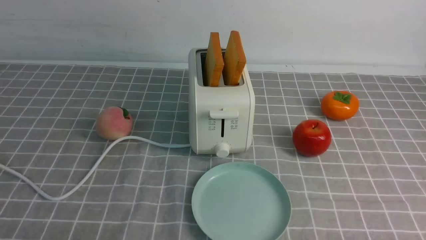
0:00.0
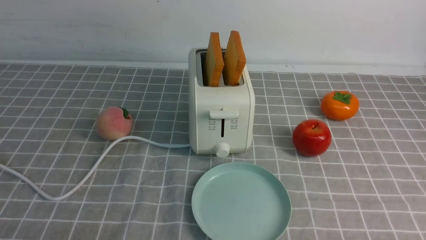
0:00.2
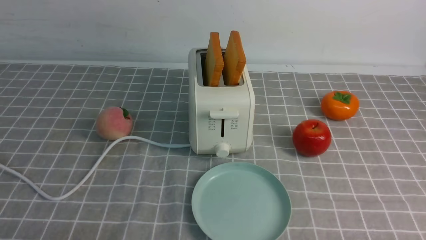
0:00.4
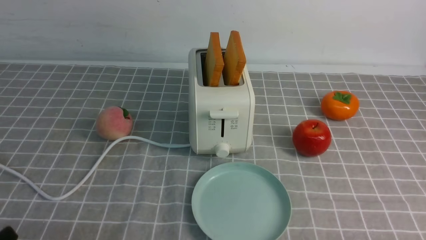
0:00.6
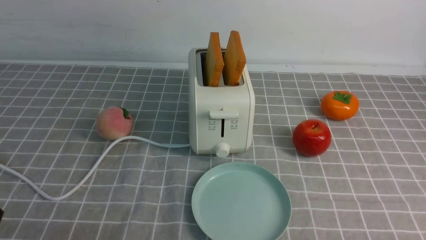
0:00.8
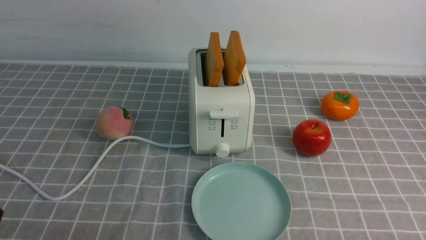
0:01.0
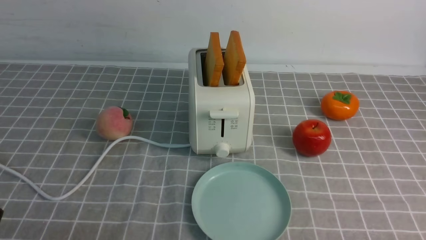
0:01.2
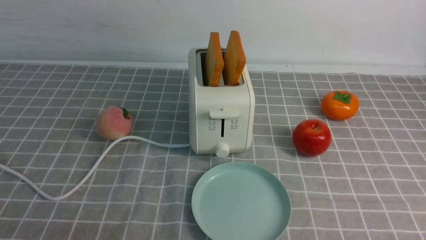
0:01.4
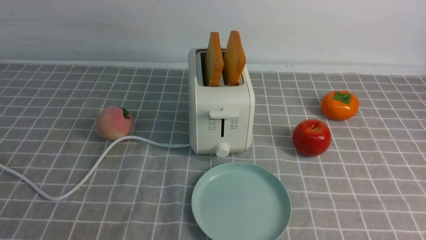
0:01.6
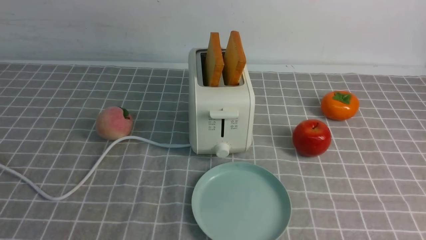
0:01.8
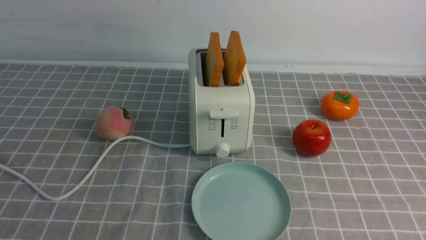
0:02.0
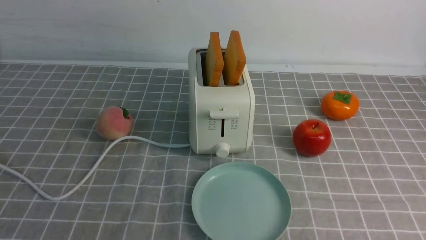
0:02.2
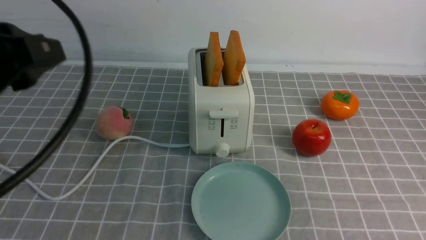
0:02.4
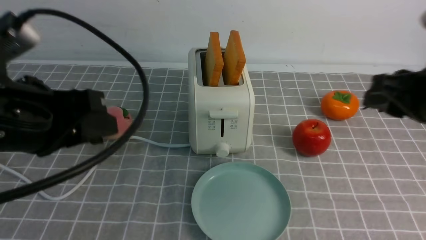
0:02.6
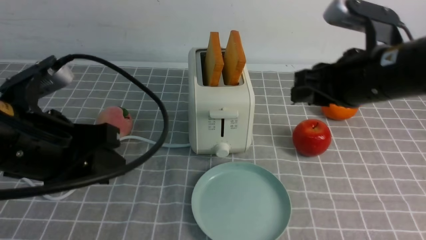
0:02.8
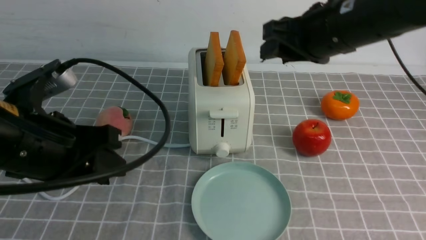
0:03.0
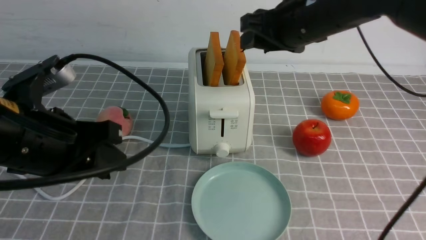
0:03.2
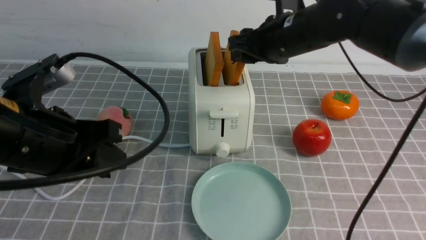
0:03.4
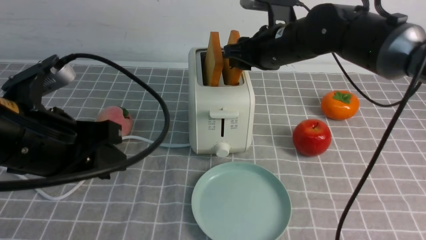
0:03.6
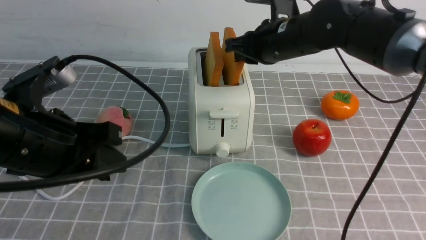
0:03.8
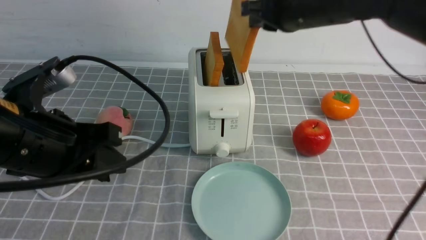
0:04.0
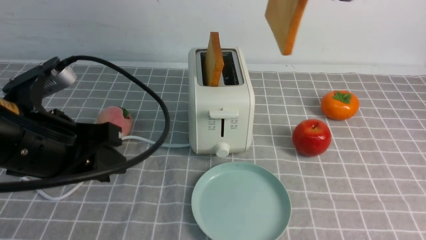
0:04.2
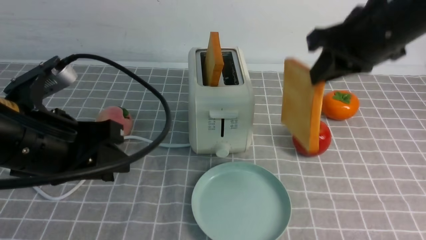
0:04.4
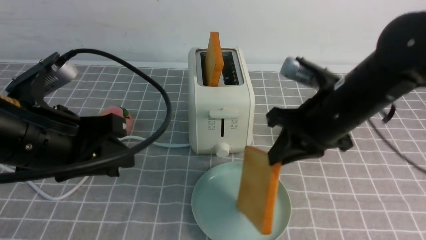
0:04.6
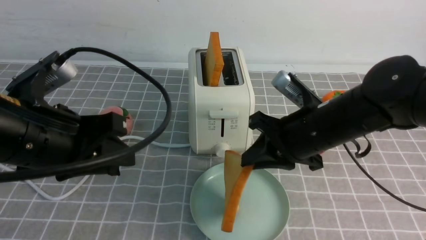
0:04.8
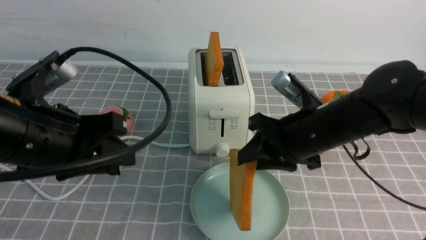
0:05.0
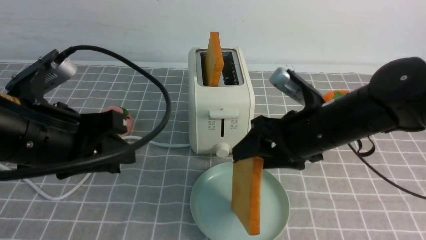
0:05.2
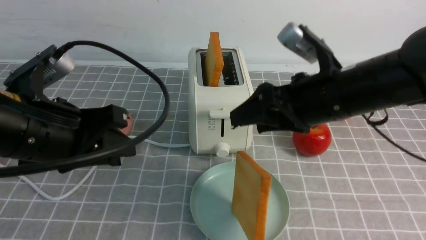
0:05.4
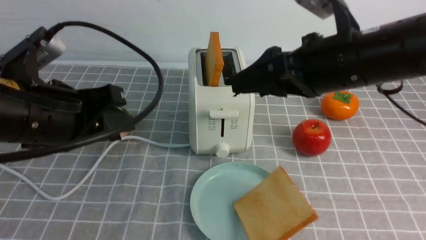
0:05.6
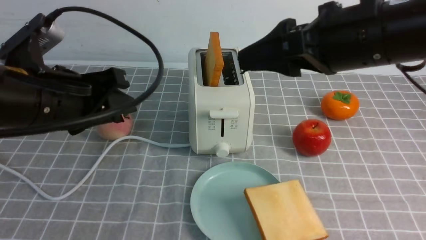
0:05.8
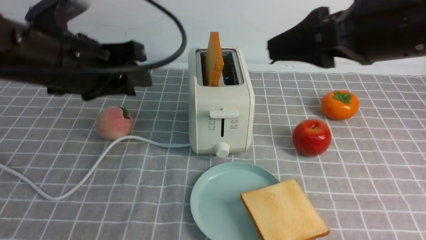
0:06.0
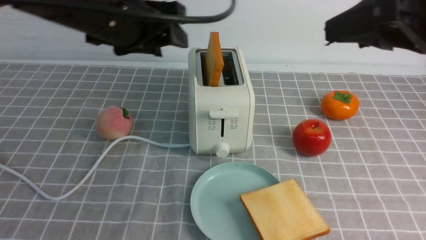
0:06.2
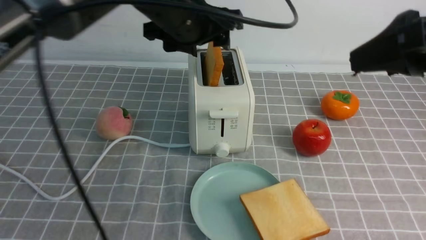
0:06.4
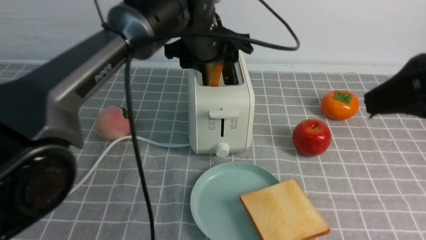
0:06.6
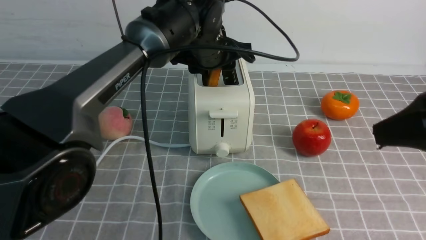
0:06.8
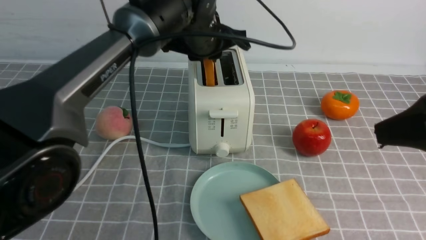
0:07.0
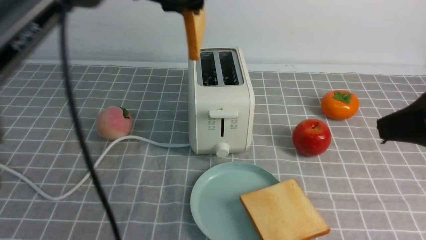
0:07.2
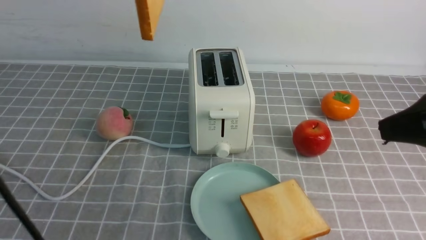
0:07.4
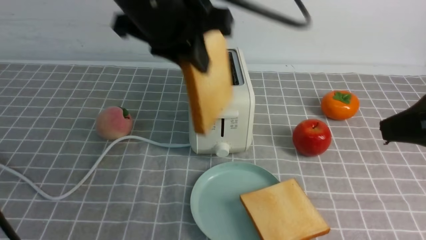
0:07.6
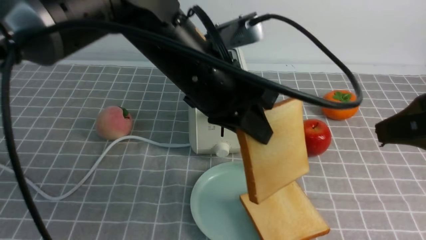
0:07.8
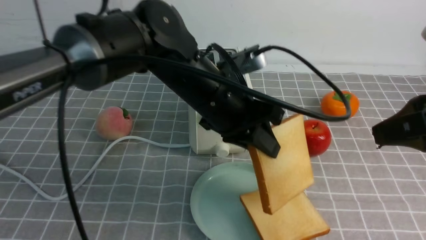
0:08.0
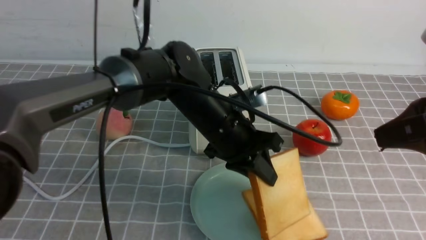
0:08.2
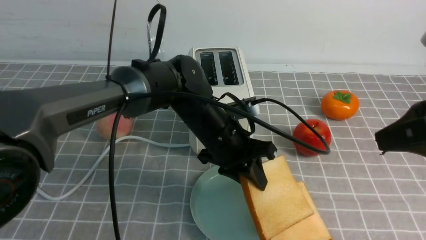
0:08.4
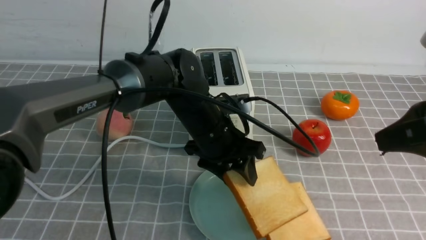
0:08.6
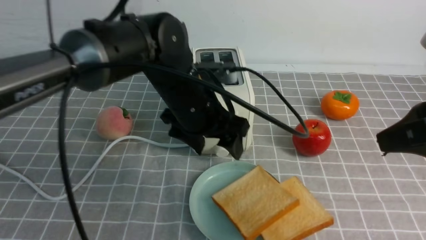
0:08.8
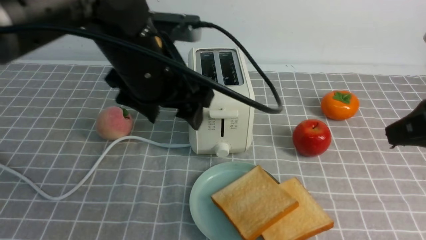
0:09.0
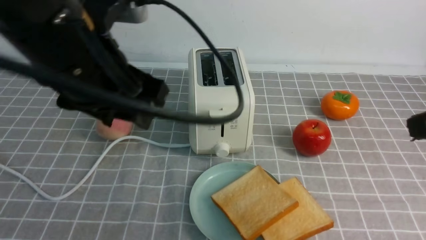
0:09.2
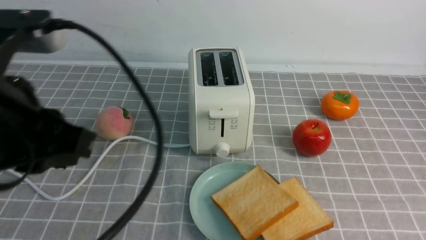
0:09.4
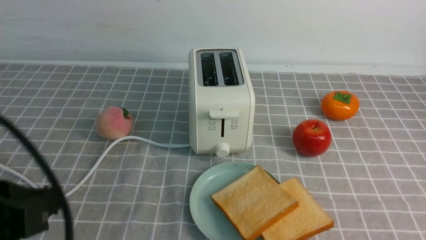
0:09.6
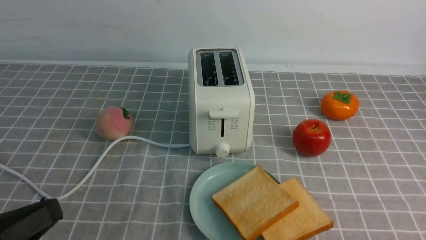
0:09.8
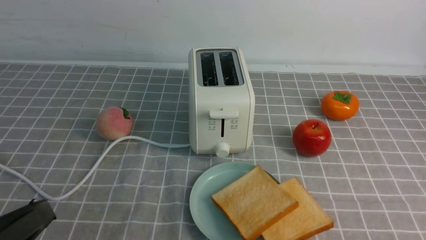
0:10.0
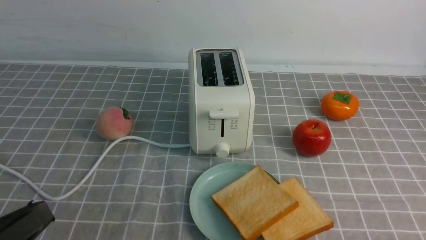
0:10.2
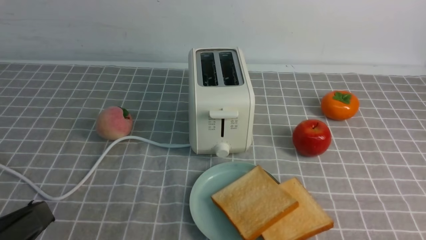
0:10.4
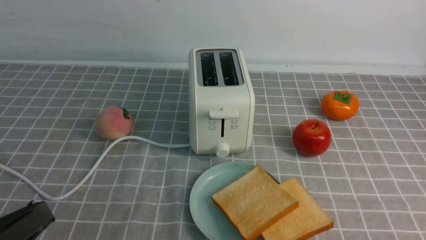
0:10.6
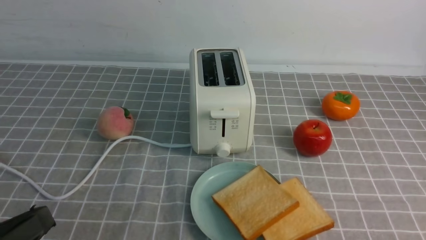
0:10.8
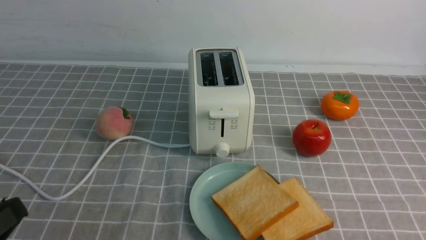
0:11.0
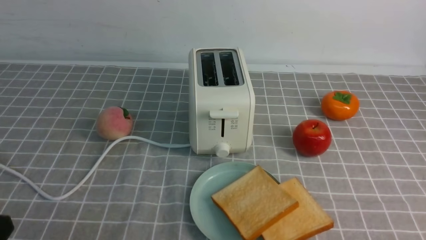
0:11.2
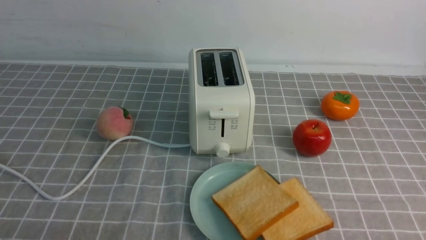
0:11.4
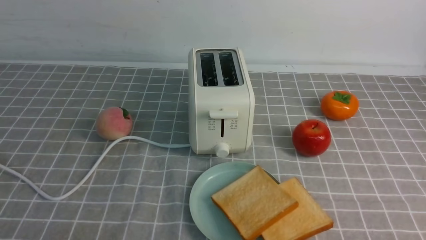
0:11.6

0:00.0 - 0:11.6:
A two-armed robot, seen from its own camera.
Task of the whole recording: take toasted bread from bread machine on grey coffee table place on plate.
Step, 0:00.0 - 0:04.0: use the right arm to take out a slice of bread.
Step, 0:04.2 - 0:05.4: use the right arm to put a slice of bread into the plate.
Step, 0:05.8 - 0:07.2: use the left arm to take out a slice of bread.
Step, 0:07.4 - 0:08.8: use the left arm to put a slice of bread into the empty plate.
0:01.4 - 0:02.8: The left gripper travels forward, upward and to the right by approximately 20 cm, while the right gripper is displaced forward, to the left and upward by roughly 30 cm.
0:02.8 - 0:04.4: The right gripper travels forward and back again, some 15 cm each way, and closes its fingers.
0:04.4 - 0:05.8: The right gripper travels backward by about 5 cm, moves roughly 10 cm downward and comes back, and opens, while the left gripper changes place by roughly 5 cm.
0:05.8 - 0:07.2: The left gripper moves forward, to the right and upward, about 20 cm, and opens, then closes again; the right gripper travels backward and to the right by approximately 15 cm.
0:07.2 - 0:08.8: The right gripper closes. Meanwhile the left gripper heads downward, covering about 15 cm, and opens its fingers.
0:08.8 - 0:10.2: The left gripper heads backward and to the left, covering about 30 cm, and closes its fingers. The right gripper heads downward and backward, covering some 20 cm, and closes.
0:10.2 - 0:11.6: The left gripper heads downward, covering approximately 10 cm.

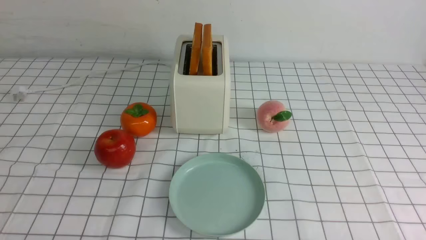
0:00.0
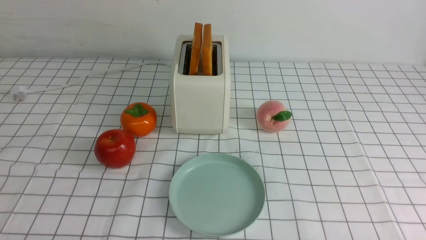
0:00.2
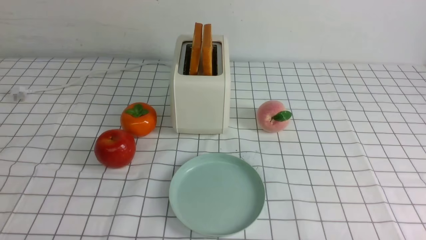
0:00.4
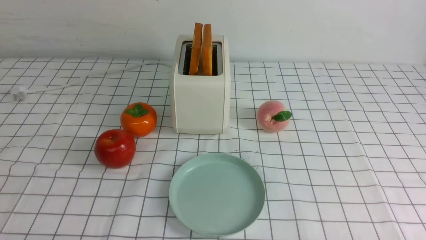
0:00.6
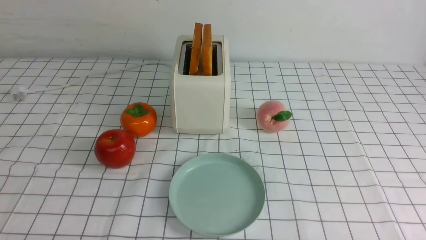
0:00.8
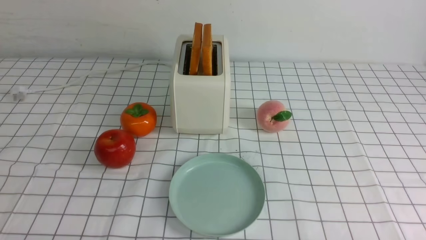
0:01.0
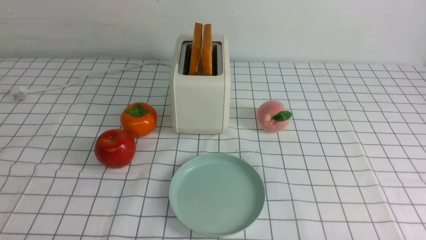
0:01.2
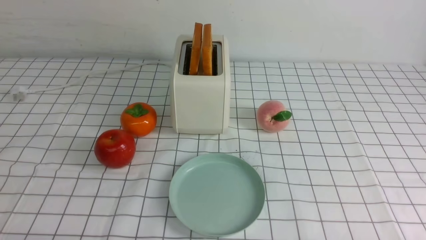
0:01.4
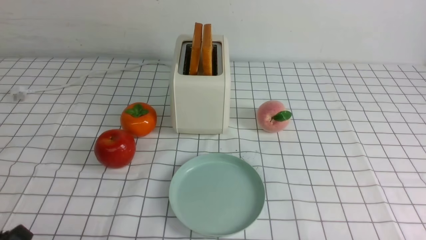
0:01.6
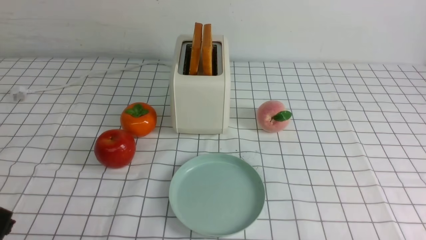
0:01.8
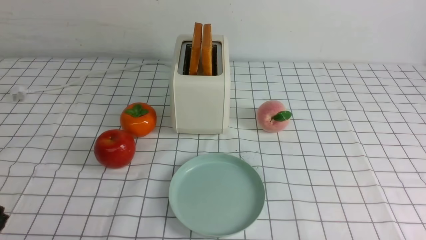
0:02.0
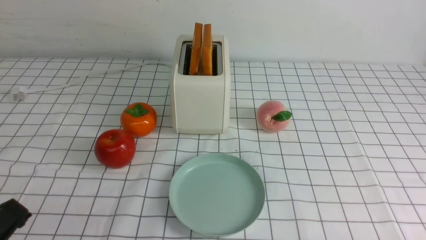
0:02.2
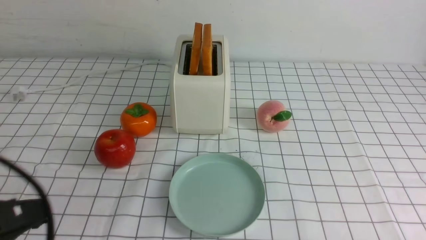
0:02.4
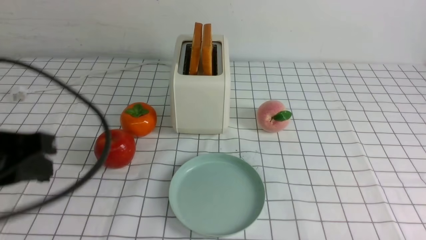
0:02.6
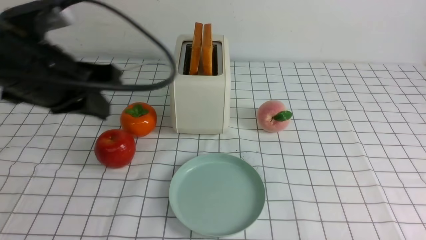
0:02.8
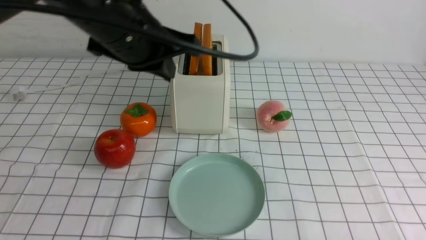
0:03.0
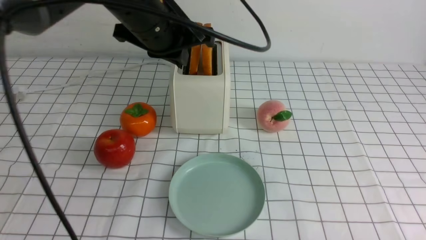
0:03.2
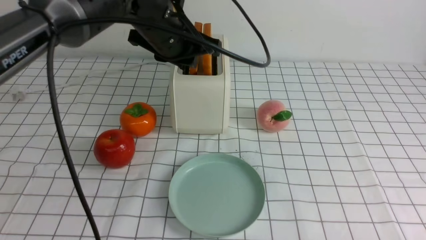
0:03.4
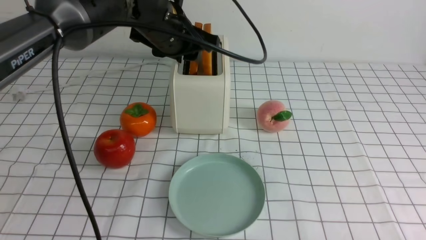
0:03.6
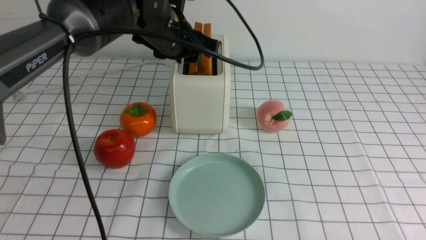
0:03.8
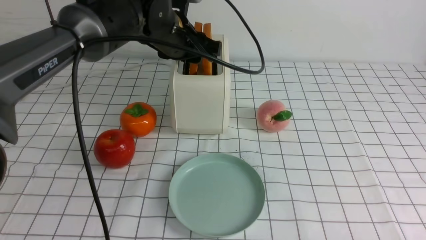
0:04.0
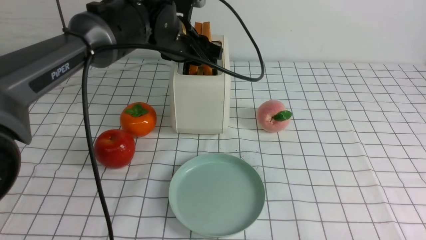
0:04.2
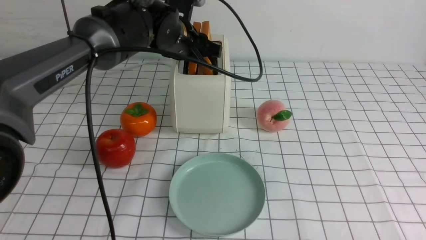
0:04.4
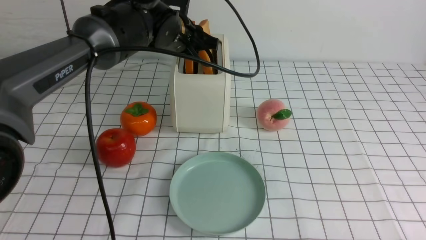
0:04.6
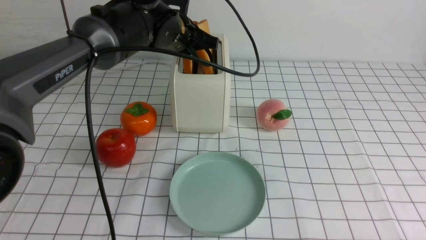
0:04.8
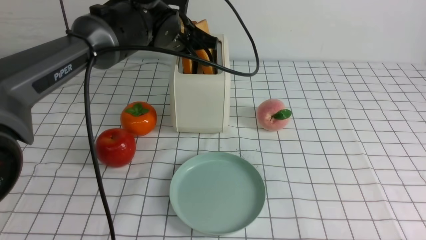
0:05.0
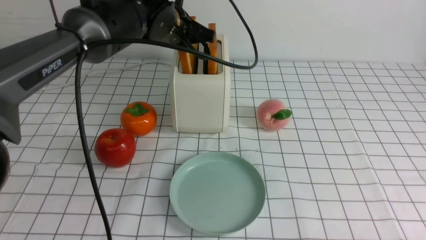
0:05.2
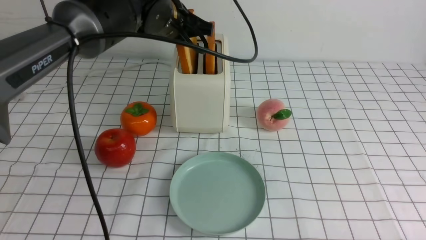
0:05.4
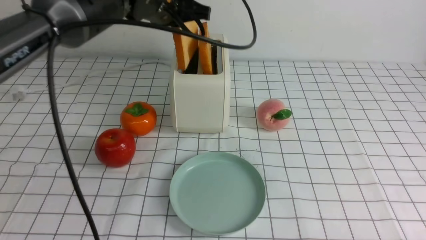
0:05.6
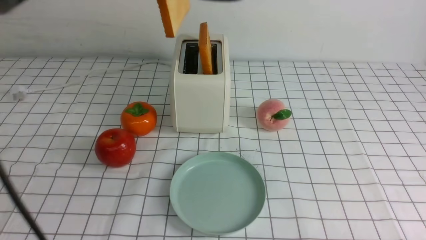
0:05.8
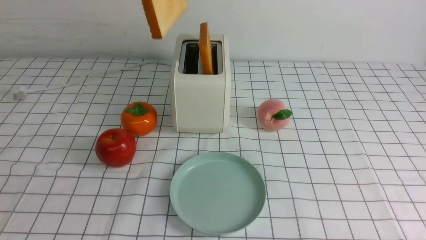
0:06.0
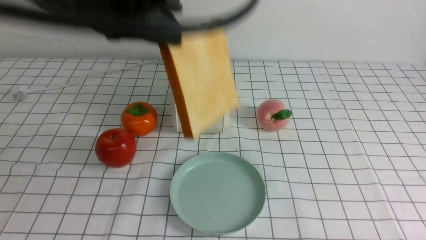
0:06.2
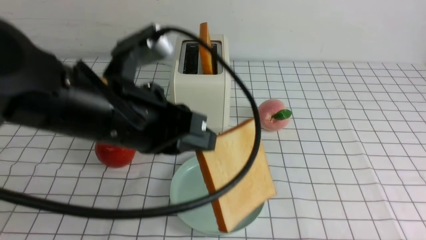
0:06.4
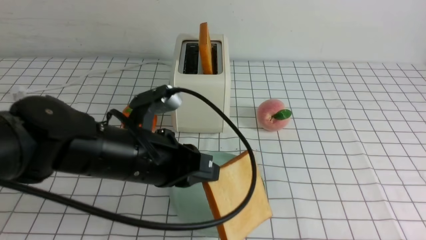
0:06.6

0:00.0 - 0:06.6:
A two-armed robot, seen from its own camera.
Task of the whole recording: take toasted bread from bread machine on white checkered table place on plate.
Step, 0:00.0 - 0:05.6: use the left arm to take out a slice of bread.
0:01.6 - 0:03.2: The left gripper shifts approximately 40 cm forward, upward and to the right, and closes its fingers.
0:03.2 - 0:05.0: The left gripper shifts about 10 cm forward, and opens, then closes once more.
0:05.0 - 0:06.6: The left gripper travels backward by approximately 20 cm.
